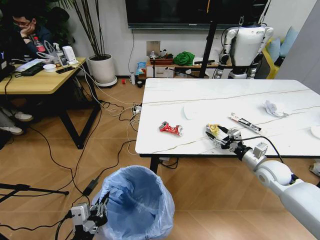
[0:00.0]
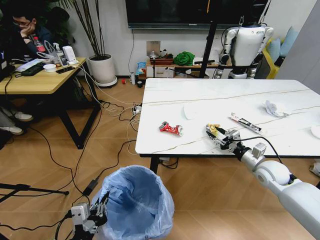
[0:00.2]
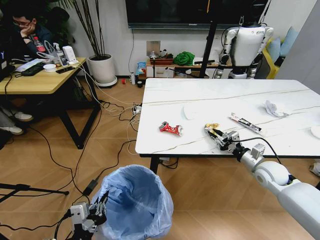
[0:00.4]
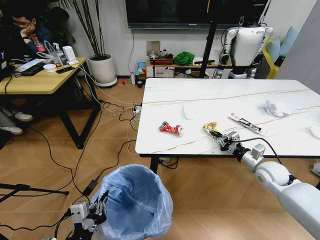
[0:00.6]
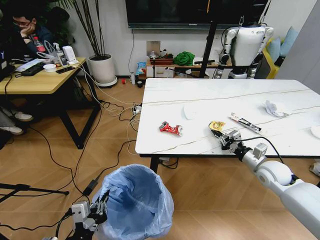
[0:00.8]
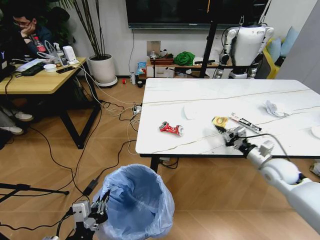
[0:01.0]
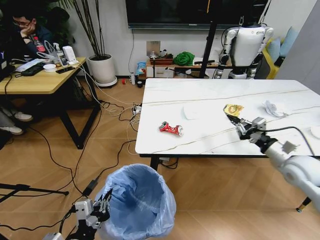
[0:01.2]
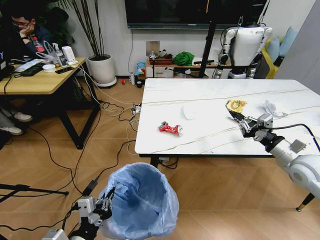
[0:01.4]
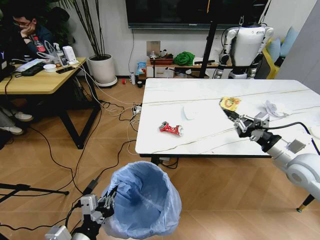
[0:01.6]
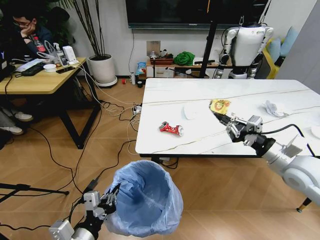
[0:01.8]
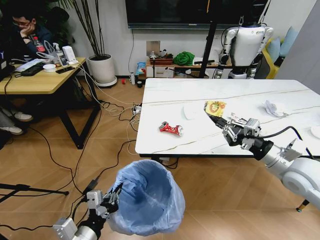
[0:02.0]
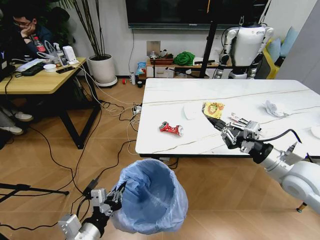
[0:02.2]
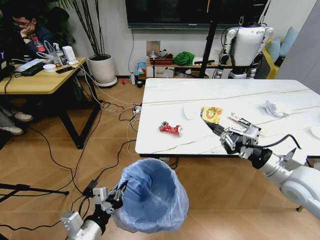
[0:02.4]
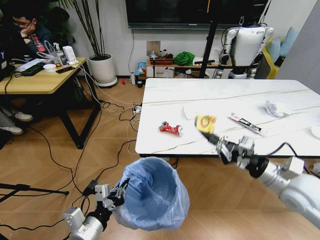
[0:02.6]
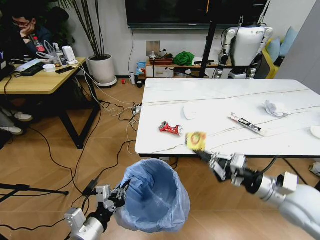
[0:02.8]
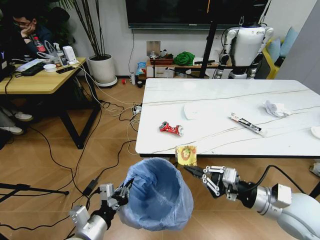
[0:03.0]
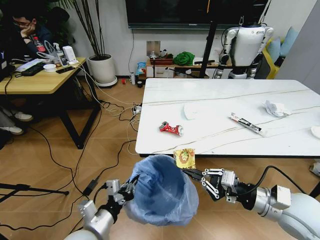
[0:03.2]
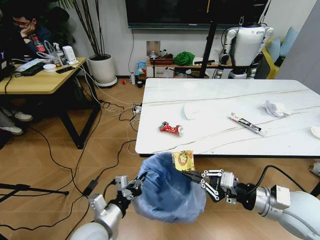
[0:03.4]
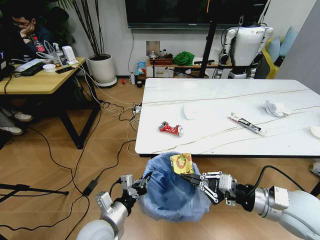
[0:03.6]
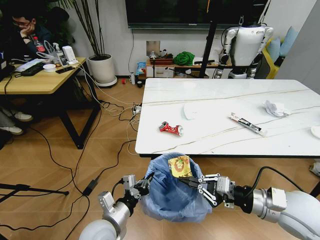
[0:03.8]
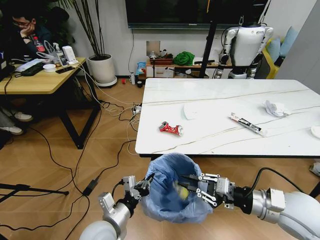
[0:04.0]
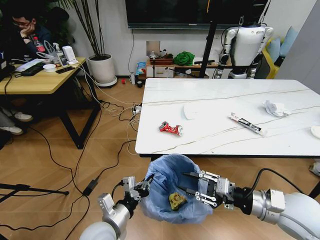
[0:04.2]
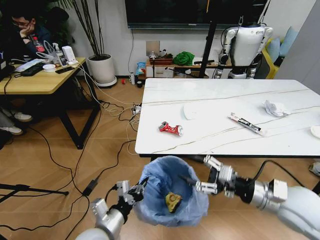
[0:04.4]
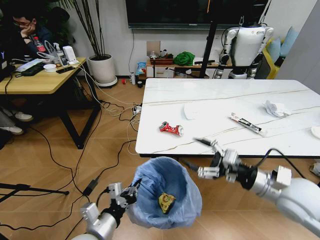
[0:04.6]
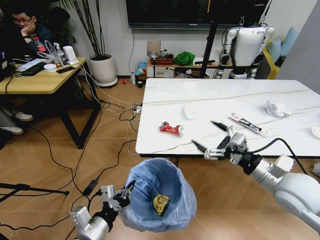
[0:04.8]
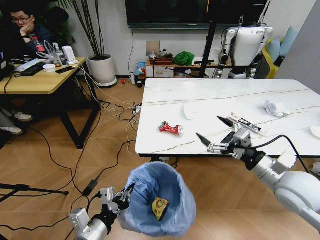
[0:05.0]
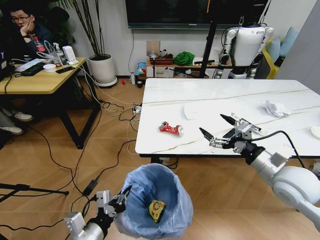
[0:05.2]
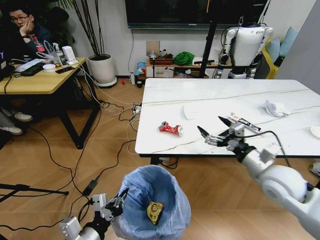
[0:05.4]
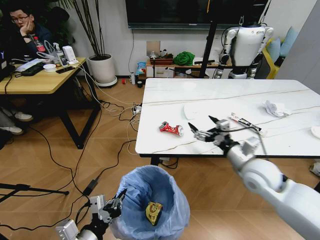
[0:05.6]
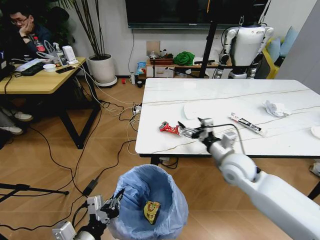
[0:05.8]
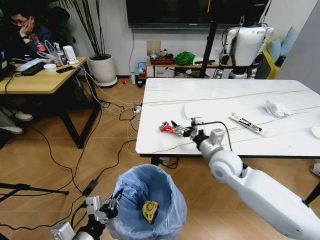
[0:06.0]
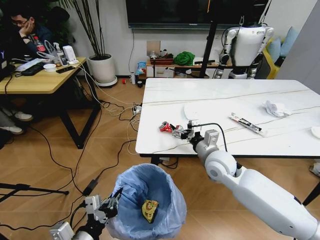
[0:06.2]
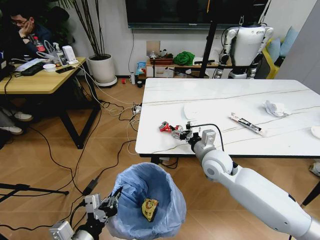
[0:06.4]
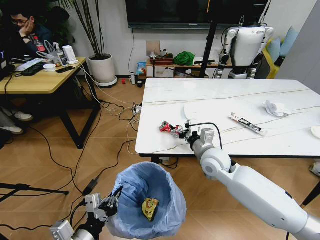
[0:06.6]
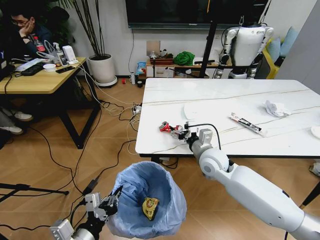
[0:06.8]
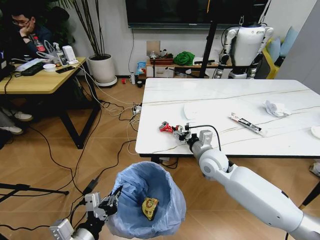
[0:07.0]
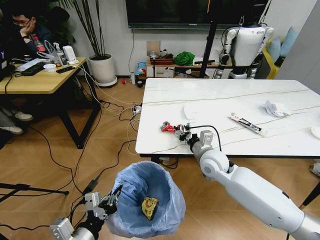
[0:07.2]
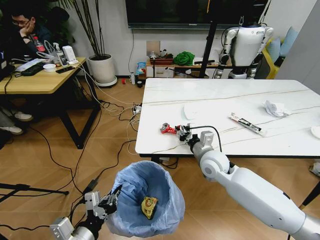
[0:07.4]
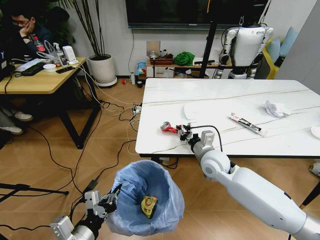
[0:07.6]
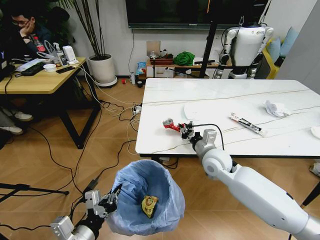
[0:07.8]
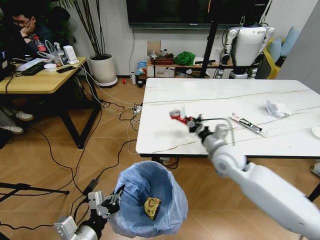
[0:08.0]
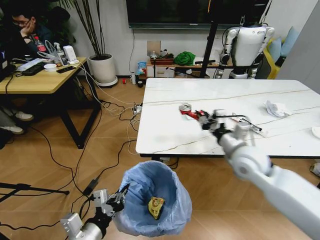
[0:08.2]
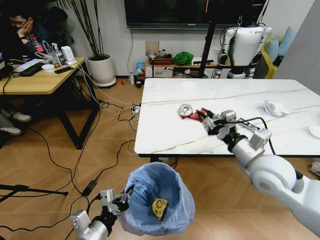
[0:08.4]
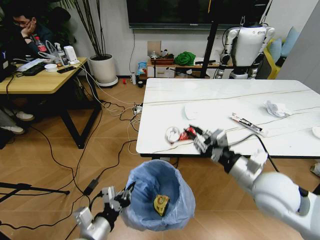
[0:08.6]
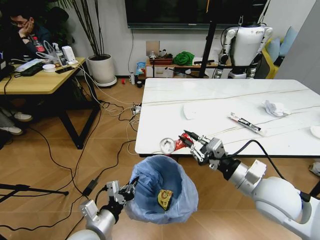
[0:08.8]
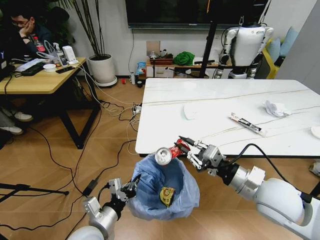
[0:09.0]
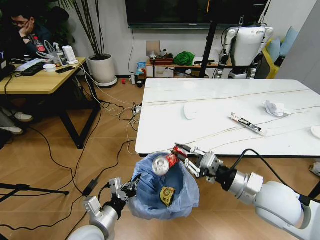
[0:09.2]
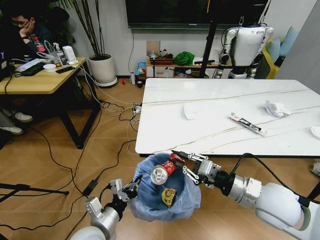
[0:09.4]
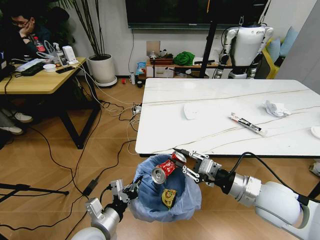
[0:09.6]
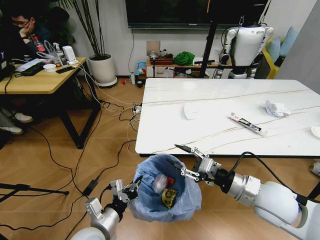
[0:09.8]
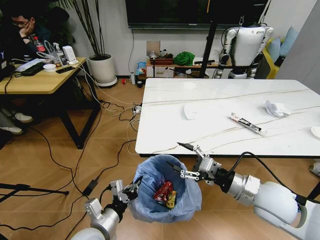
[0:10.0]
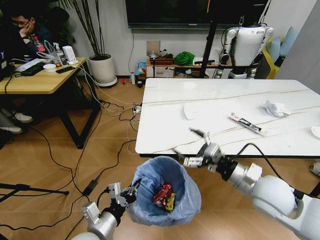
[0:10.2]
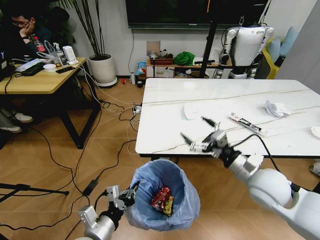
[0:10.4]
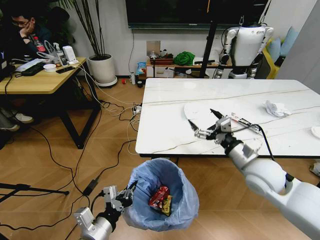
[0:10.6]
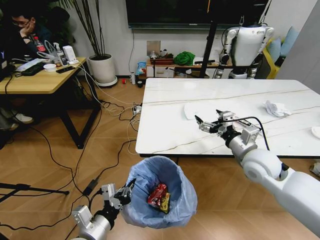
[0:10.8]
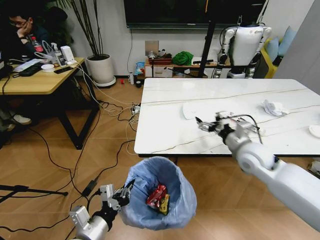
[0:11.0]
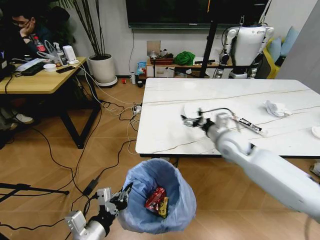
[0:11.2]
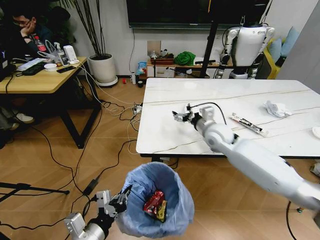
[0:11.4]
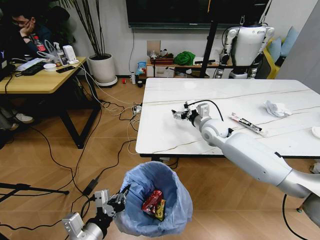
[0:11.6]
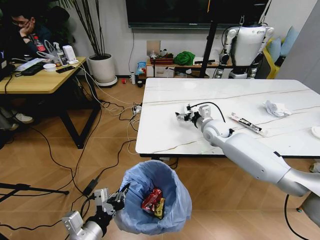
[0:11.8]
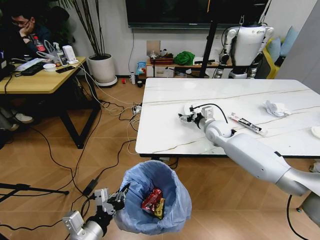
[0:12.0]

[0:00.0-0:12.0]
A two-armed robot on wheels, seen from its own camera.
Task of the whole recording: Pick up the trash bin and place the trash from the table into it.
0:00.0 to 0:01.6: The right gripper moves upward and backward, about 15 cm, and closes up.
0:01.6 to 0:03.0: The left gripper moves about 5 cm. Meanwhile the right gripper moves backward and to the left, some 15 cm.
0:03.0 to 0:04.4: The left gripper changes place by roughly 5 cm; the right gripper opens up.
0:04.4 to 0:06.0: The left gripper heads backward and to the left, covering about 10 cm. The right gripper travels forward and to the left by roughly 20 cm, and opens up.
0:06.0 to 0:07.6: The right gripper closes up.
0:07.6 to 0:09.0: The right gripper moves backward, to the right and upward, roughly 20 cm. The left gripper moves forward, about 5 cm.
0:09.0 to 0:10.4: The right gripper opens up.
0:10.4 to 0:12.0: The right gripper goes roughly 25 cm forward.

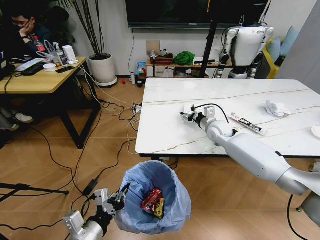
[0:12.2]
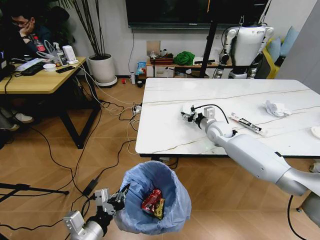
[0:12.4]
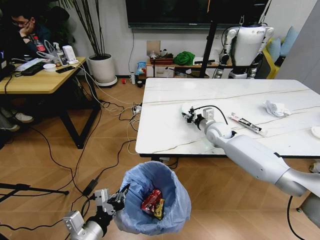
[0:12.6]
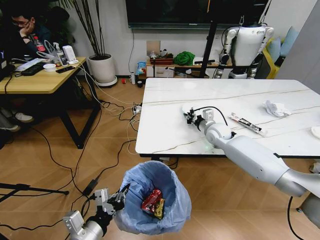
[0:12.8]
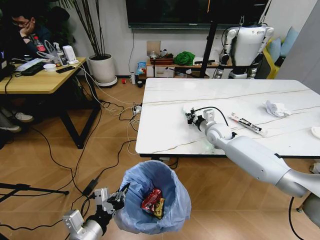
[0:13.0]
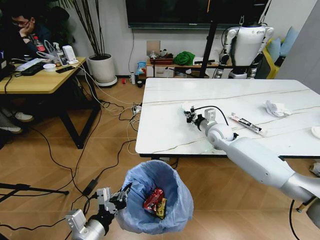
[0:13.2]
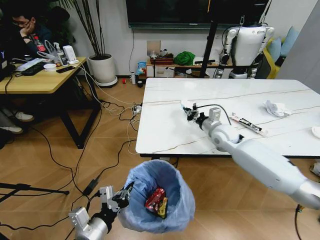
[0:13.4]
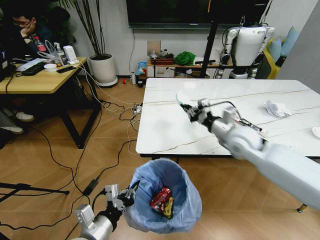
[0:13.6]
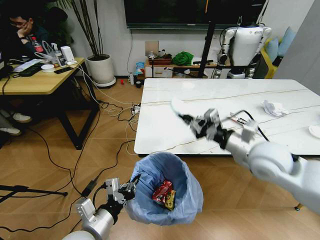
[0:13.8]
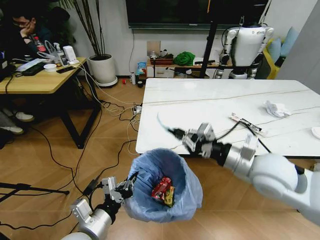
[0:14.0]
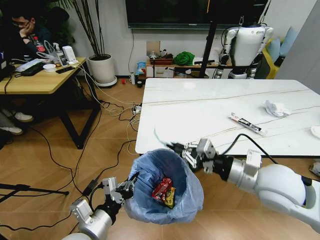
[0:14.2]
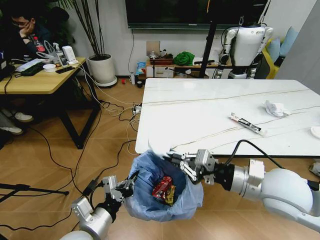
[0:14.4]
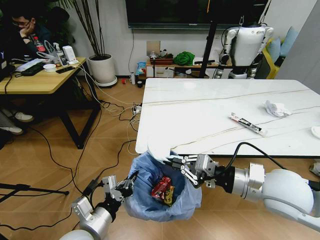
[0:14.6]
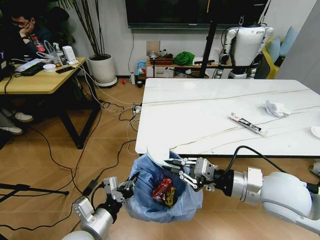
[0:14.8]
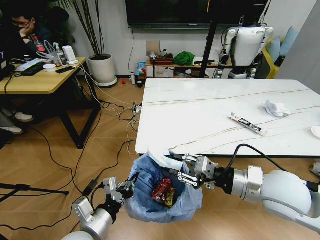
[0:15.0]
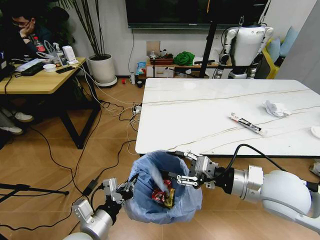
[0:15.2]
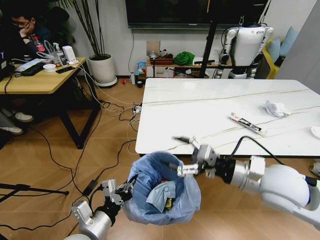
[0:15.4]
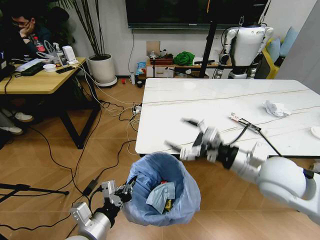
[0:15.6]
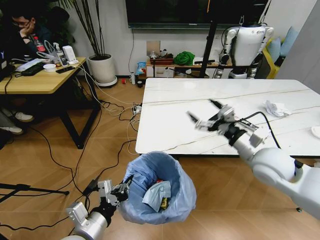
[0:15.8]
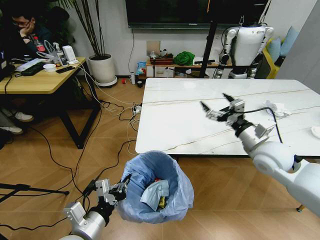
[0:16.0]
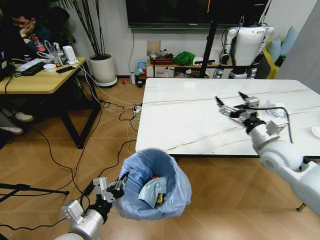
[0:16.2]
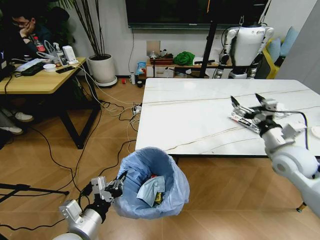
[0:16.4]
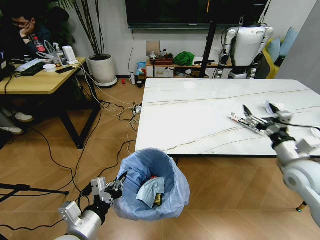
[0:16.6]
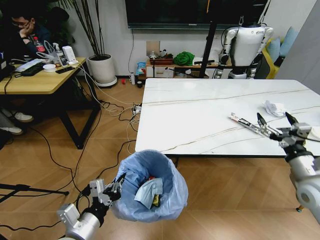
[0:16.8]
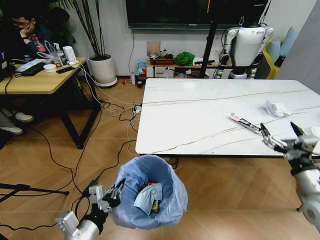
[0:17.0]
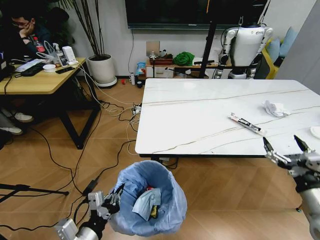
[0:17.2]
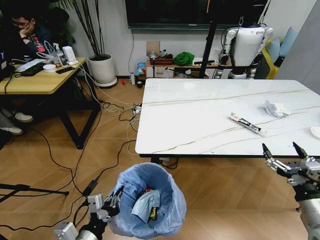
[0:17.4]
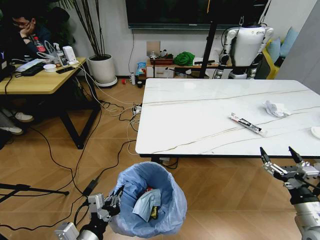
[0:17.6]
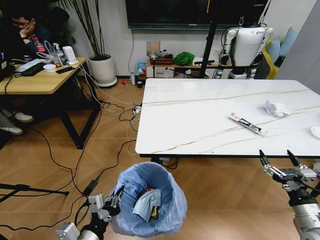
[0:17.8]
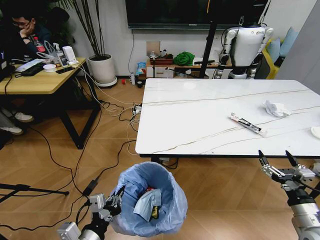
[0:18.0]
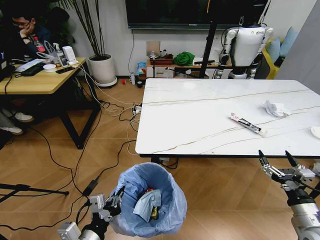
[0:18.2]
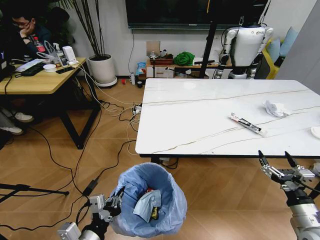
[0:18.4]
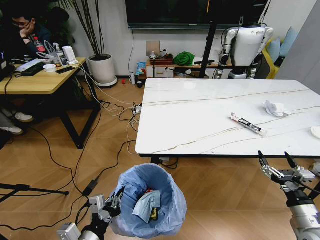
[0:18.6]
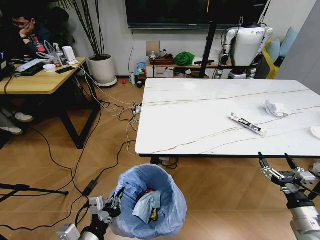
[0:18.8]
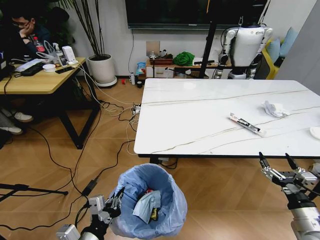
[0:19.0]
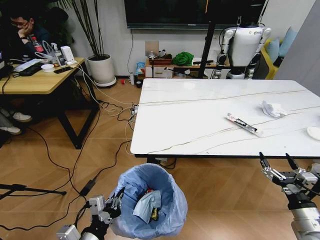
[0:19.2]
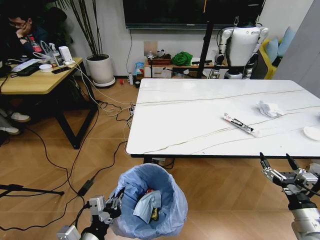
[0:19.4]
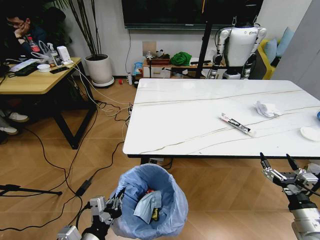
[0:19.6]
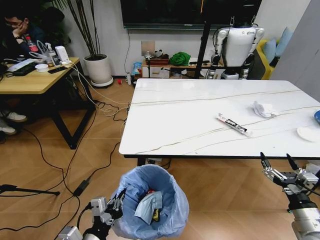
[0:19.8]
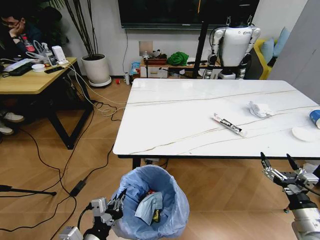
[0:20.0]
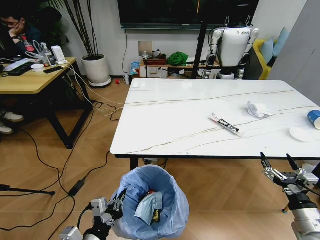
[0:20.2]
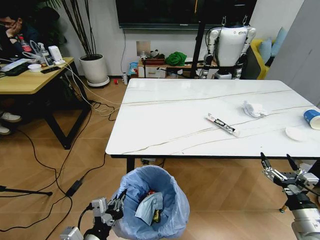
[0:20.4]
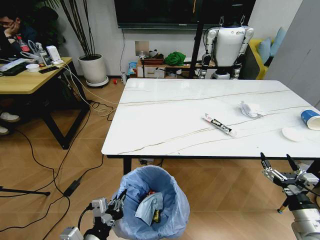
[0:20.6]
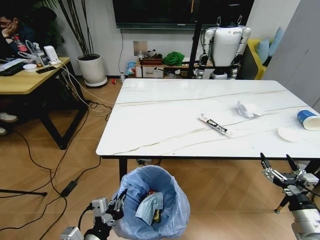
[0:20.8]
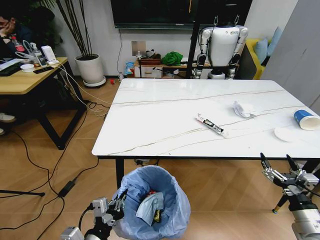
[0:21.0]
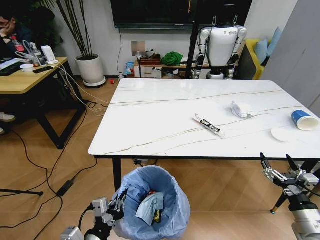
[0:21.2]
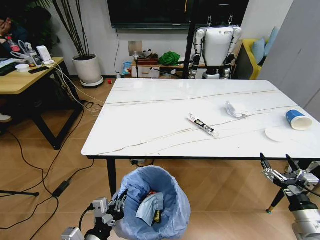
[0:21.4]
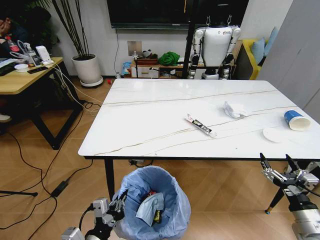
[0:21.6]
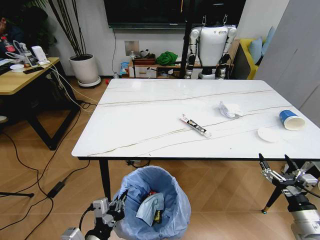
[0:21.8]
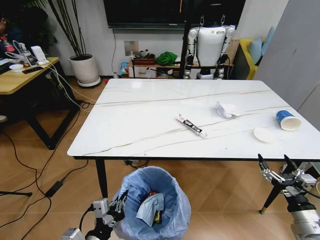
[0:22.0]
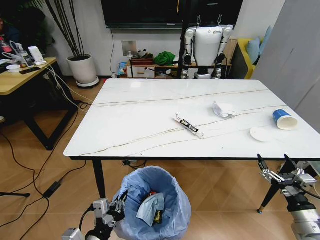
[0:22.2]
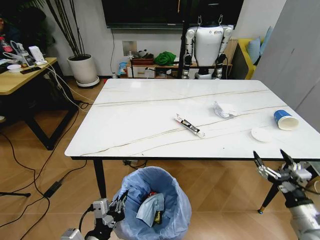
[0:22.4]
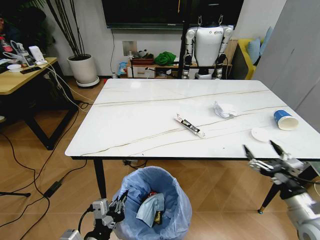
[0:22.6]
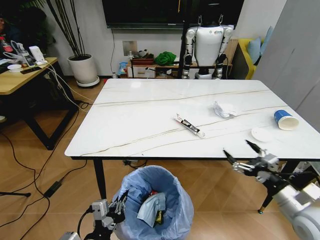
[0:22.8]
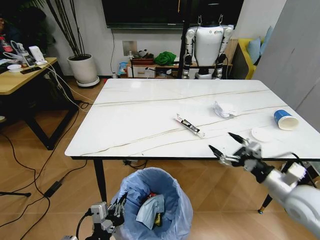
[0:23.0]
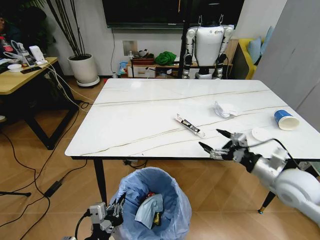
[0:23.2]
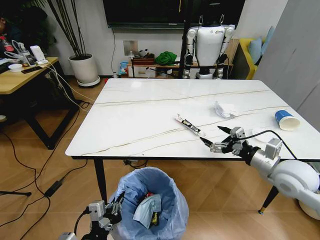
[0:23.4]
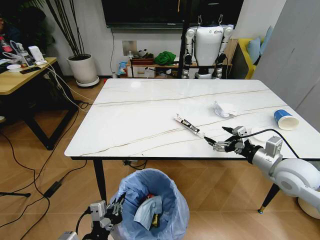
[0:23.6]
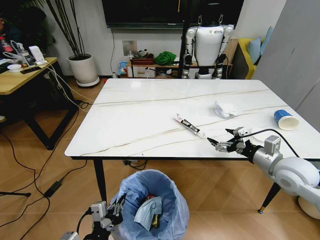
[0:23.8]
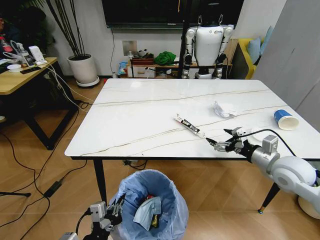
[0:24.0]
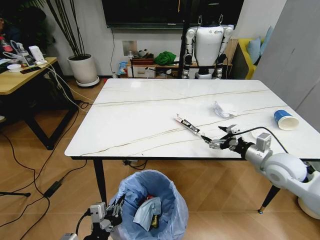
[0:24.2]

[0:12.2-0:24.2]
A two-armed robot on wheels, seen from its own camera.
Task of the whole recording: Pick up the trash bin and place the trash from the table into it.
0:12.2 to 0:13.8: The right gripper goes about 20 cm backward and upward, and closes.
0:13.8 to 0:15.2: The right gripper shifts roughly 10 cm backward, and opens its fingers.
0:15.2 to 0:16.6: The right gripper heads to the right and forward, covering approximately 15 cm, and opens up.
0:16.6 to 0:18.2: The right gripper goes about 20 cm backward and downward.
0:21.2 to 0:22.6: The right gripper changes place by roughly 5 cm.
0:22.6 to 0:24.2: The right gripper is displaced forward by approximately 15 cm.
